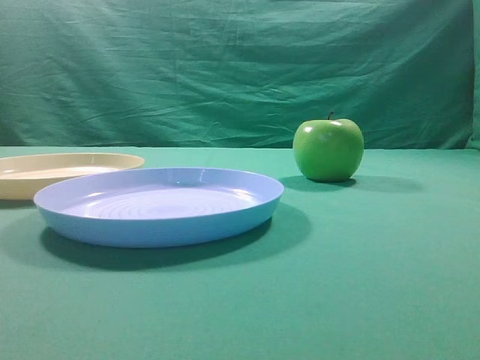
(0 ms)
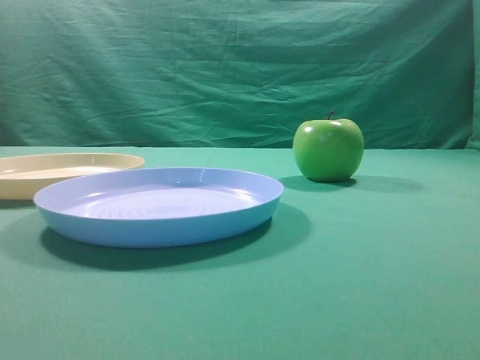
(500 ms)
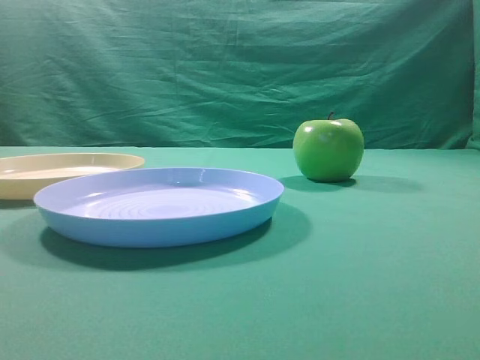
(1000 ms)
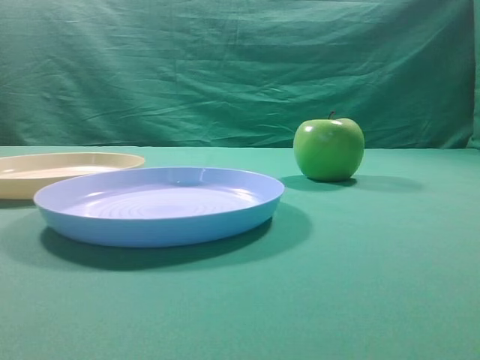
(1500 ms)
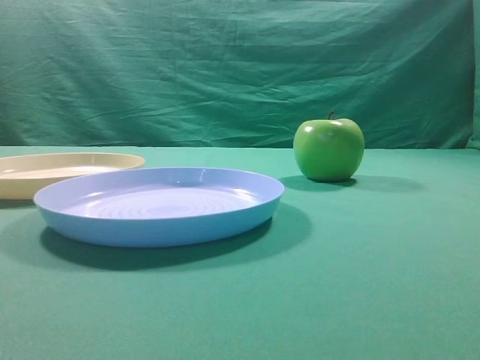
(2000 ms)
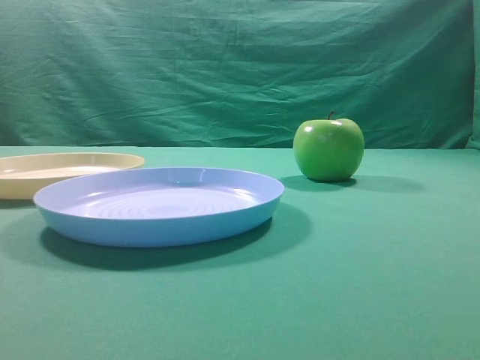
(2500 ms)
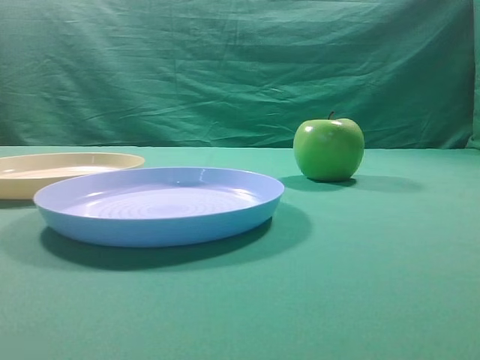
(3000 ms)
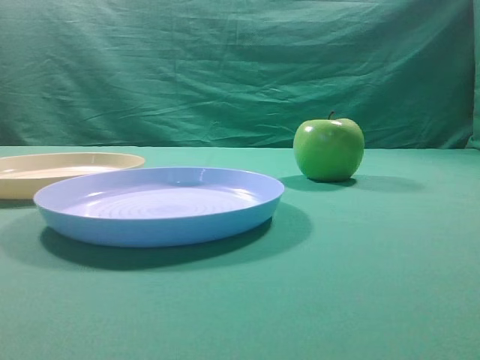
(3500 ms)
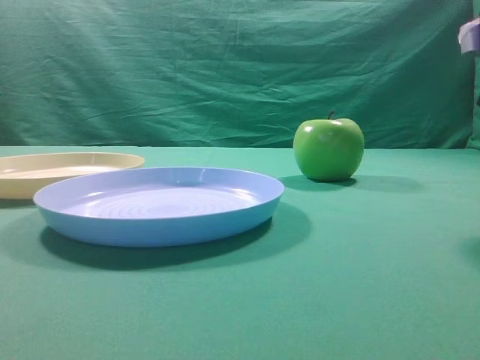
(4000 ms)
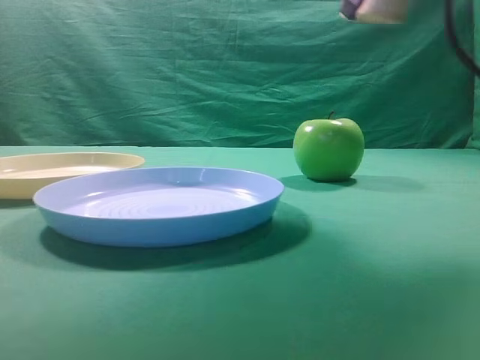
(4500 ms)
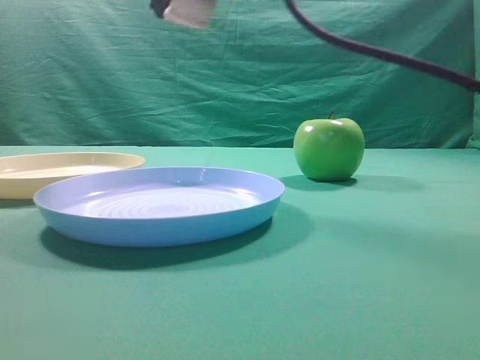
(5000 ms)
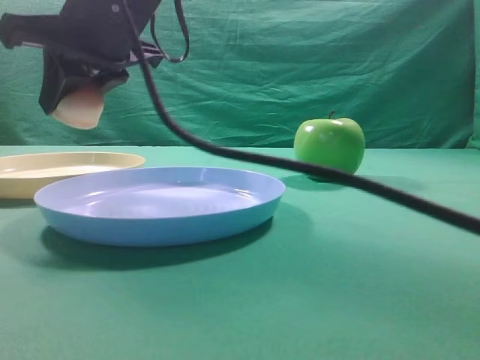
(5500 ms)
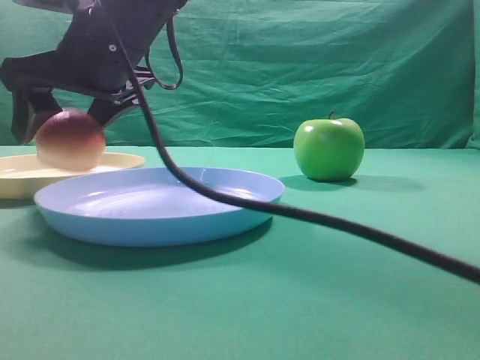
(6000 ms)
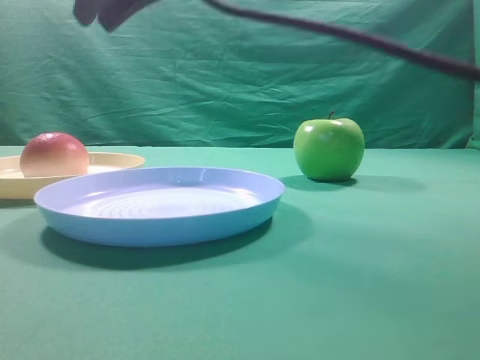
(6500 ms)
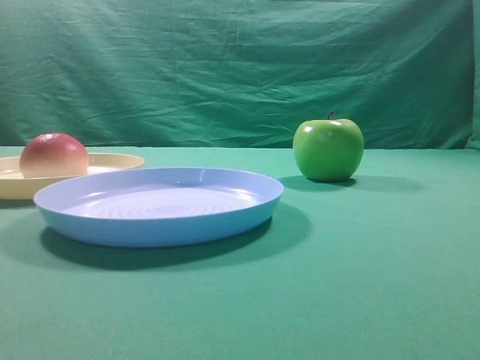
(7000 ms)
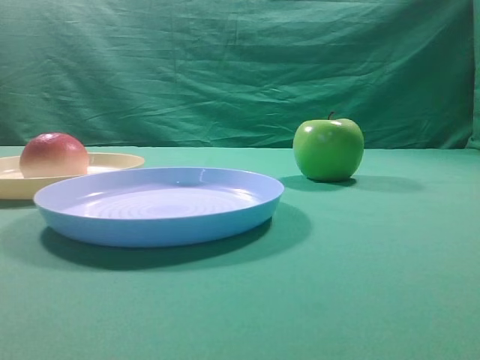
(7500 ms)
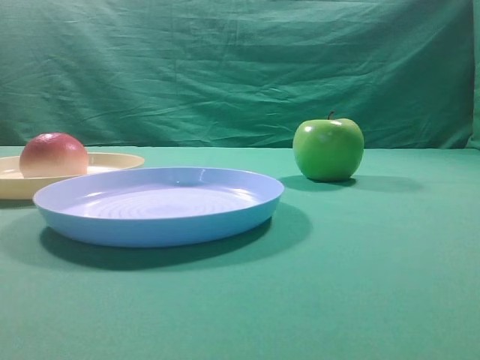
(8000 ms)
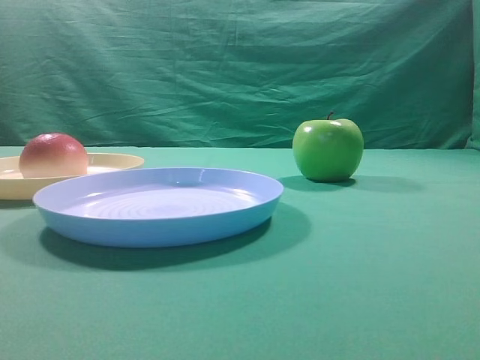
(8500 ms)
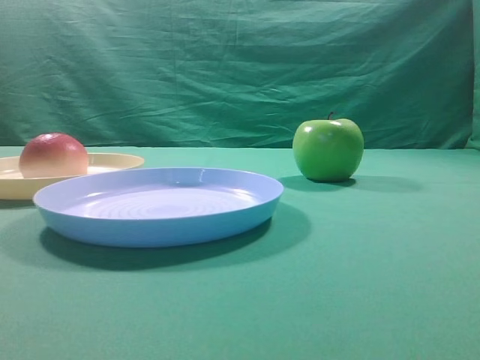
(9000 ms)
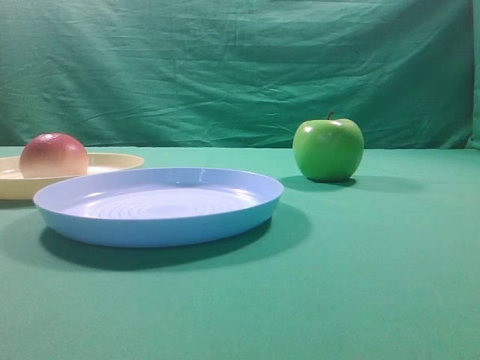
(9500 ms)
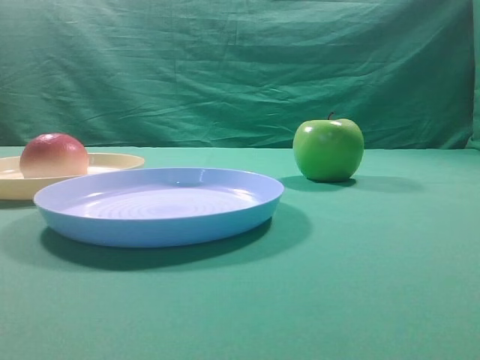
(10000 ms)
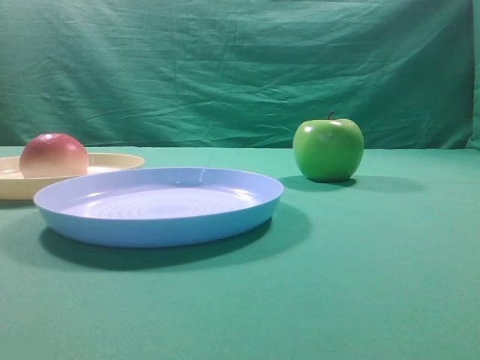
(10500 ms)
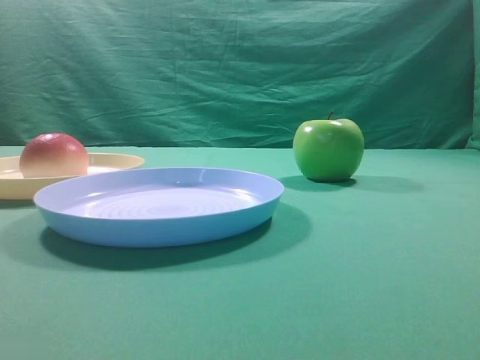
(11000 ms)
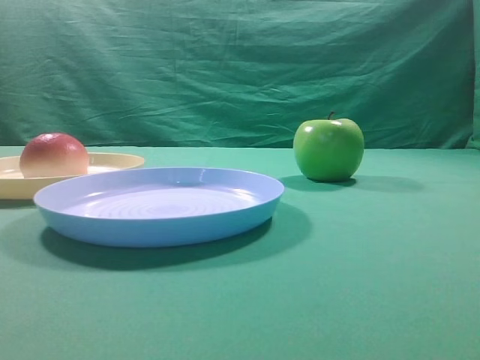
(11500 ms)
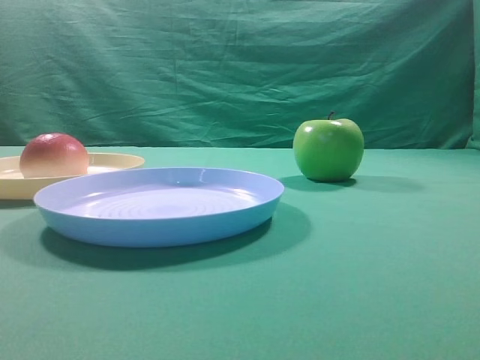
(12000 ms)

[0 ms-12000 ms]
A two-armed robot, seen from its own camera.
Step, 4500 ms to 6000 ms: Place the picked object on the yellow plate.
